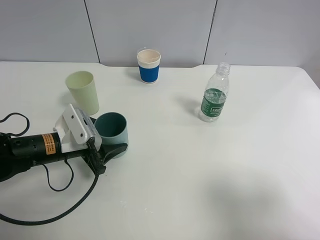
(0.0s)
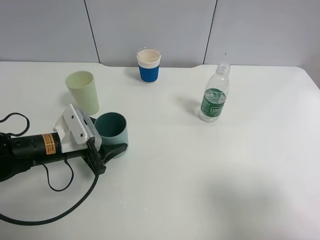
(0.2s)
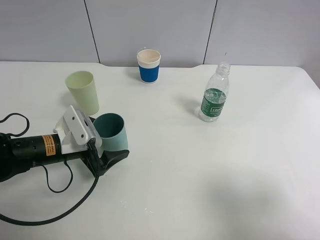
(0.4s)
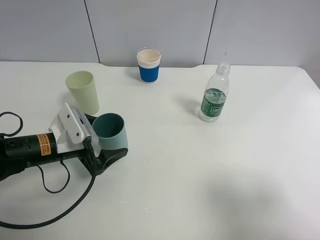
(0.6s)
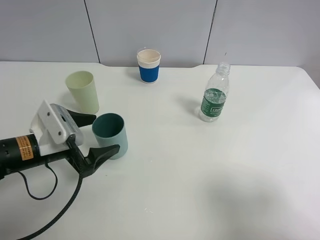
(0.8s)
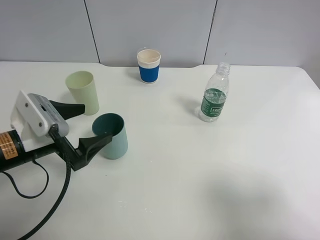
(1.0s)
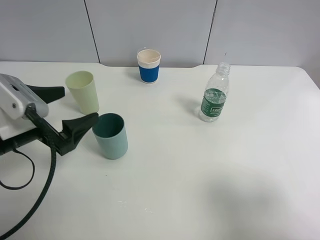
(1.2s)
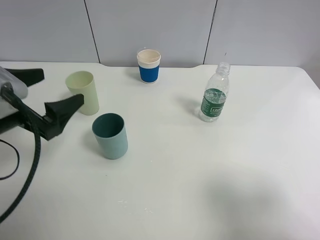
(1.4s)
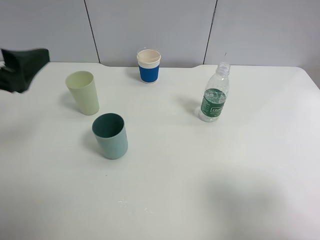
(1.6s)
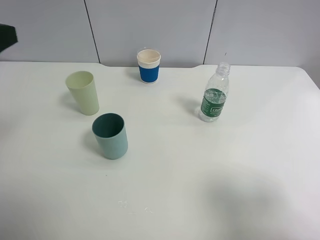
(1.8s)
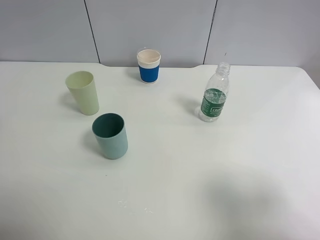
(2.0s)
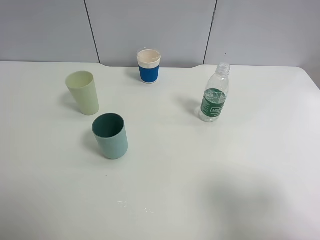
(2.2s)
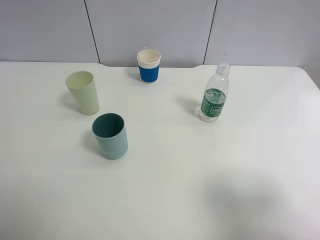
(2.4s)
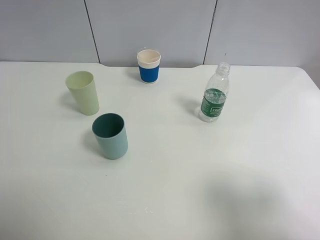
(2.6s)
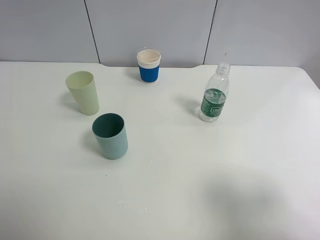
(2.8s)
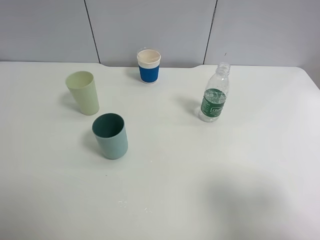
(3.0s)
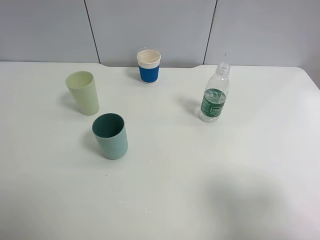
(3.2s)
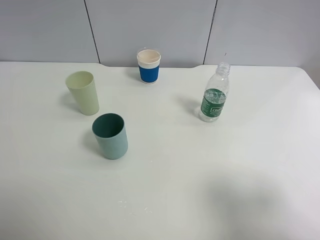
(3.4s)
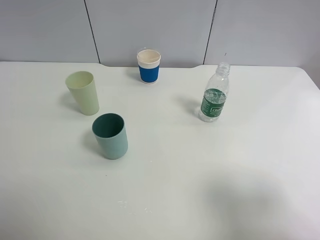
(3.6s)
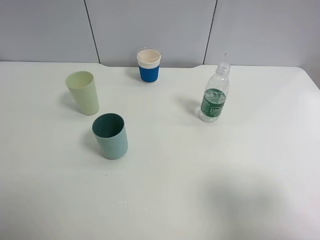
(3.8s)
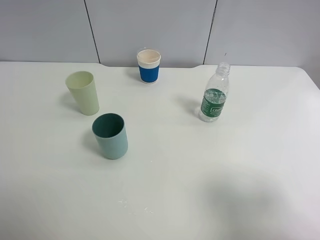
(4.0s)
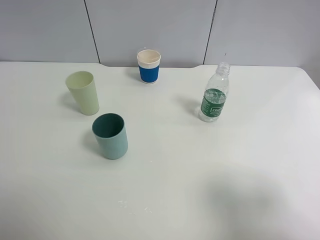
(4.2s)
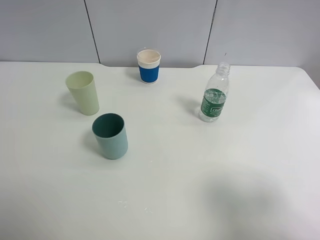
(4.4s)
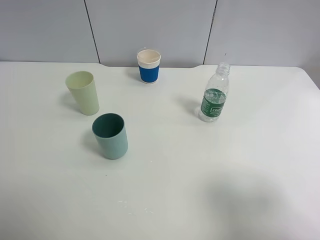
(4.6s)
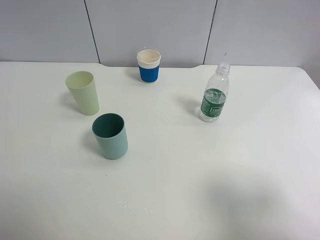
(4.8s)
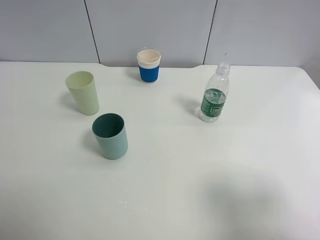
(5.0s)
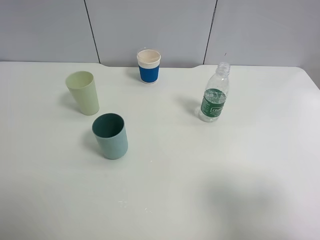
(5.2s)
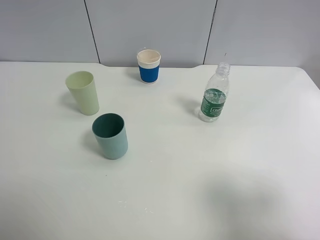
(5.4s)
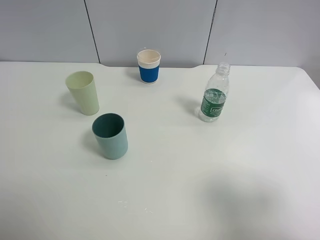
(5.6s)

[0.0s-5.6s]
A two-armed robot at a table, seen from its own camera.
Task of the whole recording: use a clamp to hold the bottle of the drink, pour the beverage into a random cup, then clamp the cup containing the drink and pour the drink into another random cup.
0.0s to 1.4s: The left gripper travels upward by some 15 cm, and opens up.
1.4s to 2.8s: The left gripper goes about 20 cm backward, upward and to the left.
4.2s to 5.6s: Neither gripper changes place.

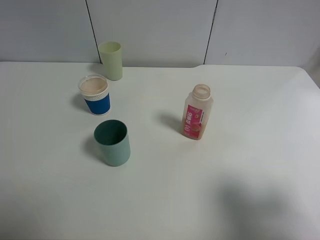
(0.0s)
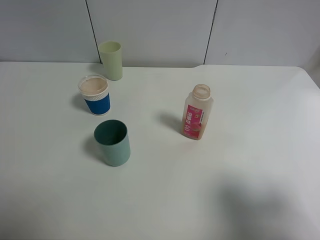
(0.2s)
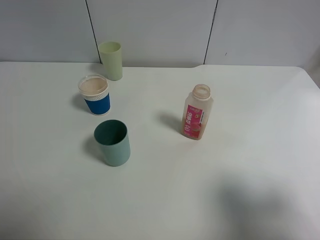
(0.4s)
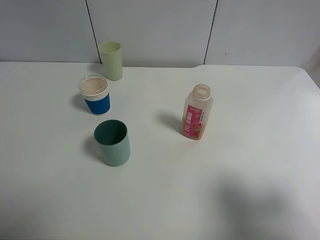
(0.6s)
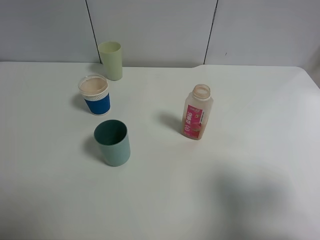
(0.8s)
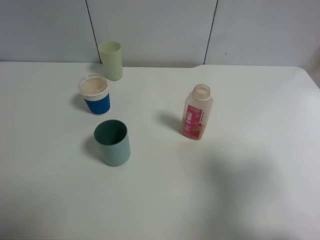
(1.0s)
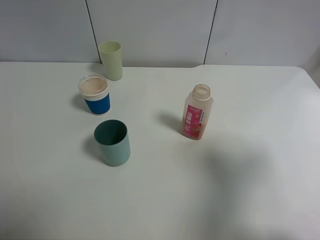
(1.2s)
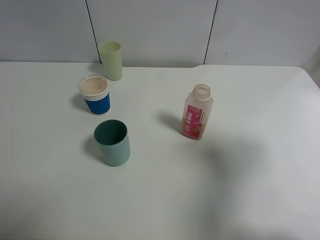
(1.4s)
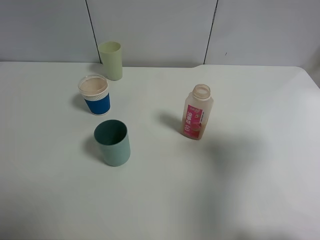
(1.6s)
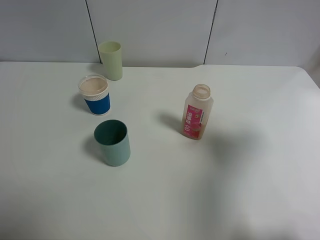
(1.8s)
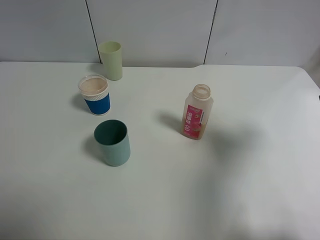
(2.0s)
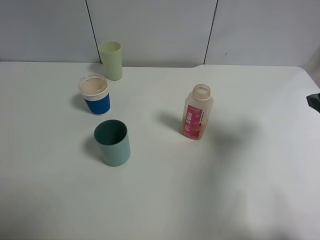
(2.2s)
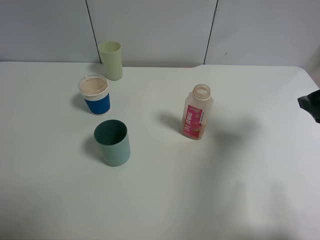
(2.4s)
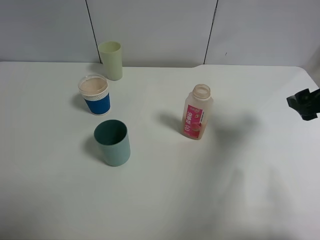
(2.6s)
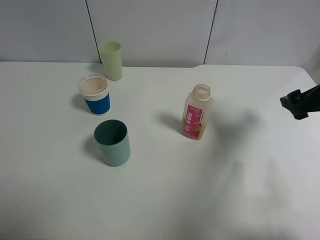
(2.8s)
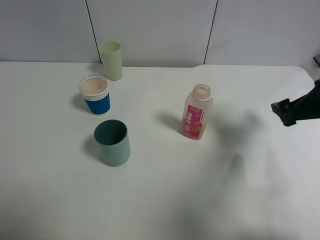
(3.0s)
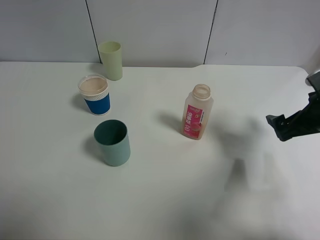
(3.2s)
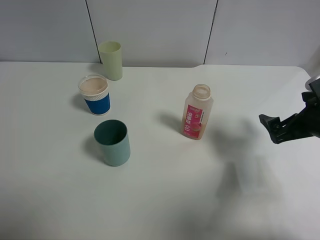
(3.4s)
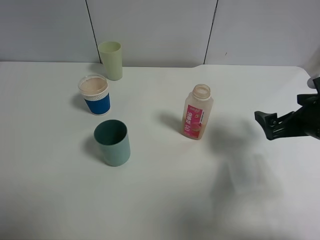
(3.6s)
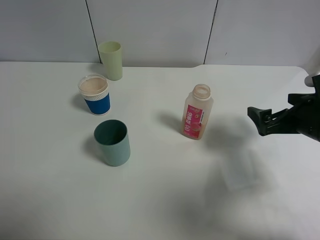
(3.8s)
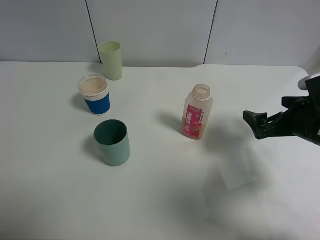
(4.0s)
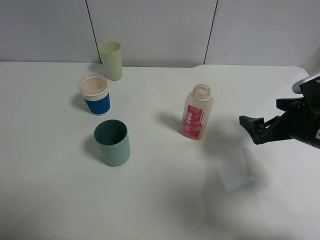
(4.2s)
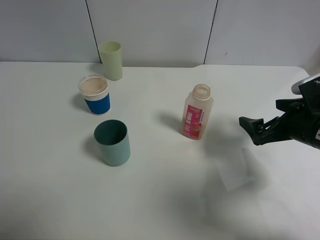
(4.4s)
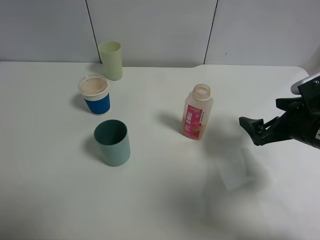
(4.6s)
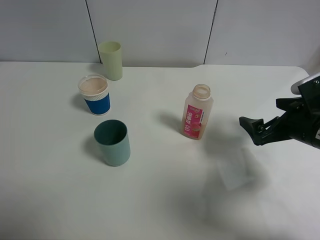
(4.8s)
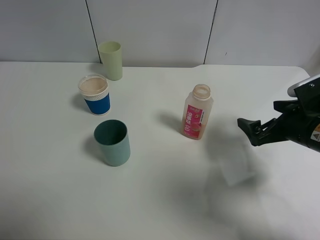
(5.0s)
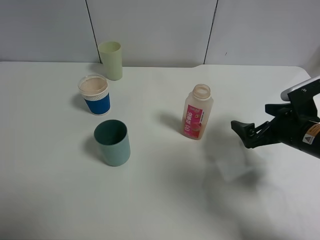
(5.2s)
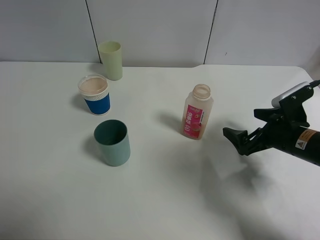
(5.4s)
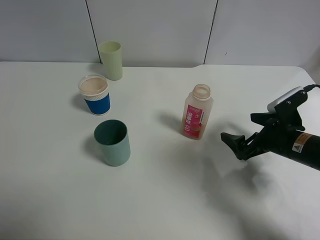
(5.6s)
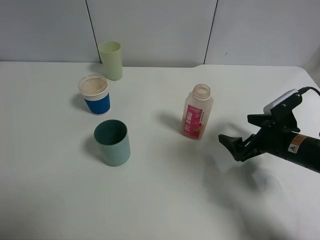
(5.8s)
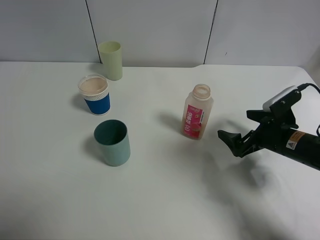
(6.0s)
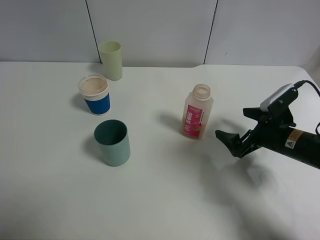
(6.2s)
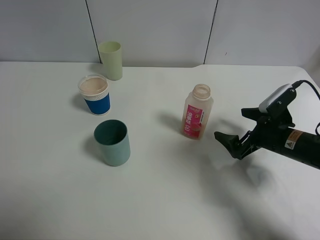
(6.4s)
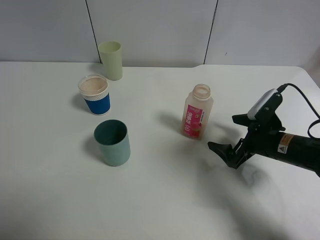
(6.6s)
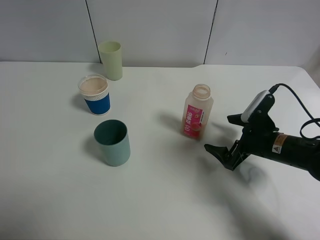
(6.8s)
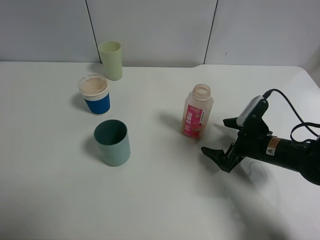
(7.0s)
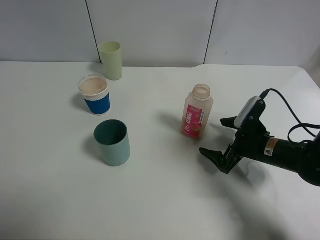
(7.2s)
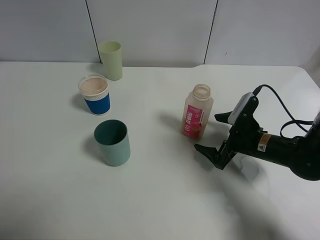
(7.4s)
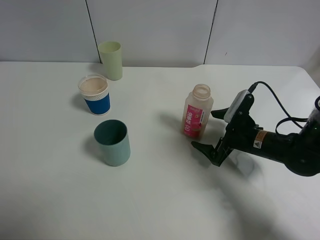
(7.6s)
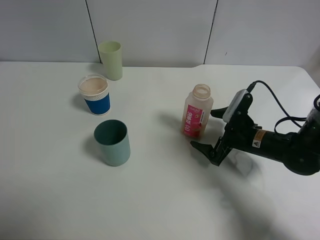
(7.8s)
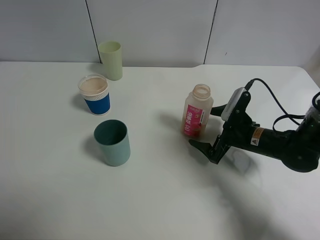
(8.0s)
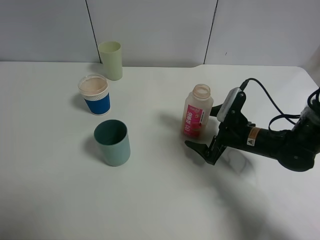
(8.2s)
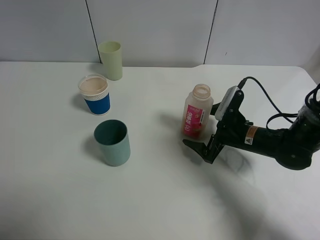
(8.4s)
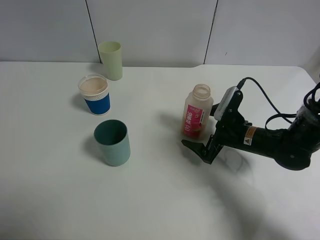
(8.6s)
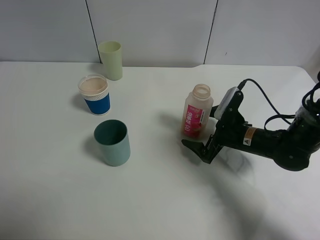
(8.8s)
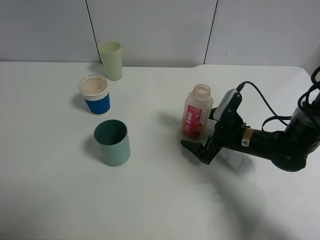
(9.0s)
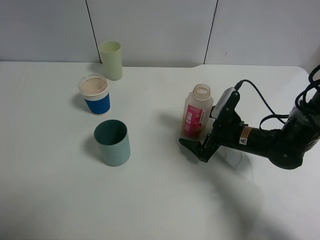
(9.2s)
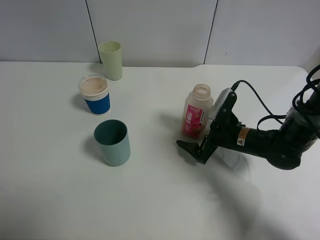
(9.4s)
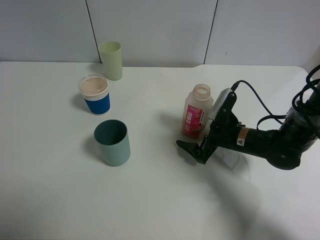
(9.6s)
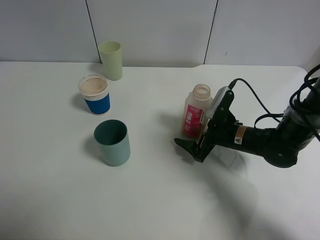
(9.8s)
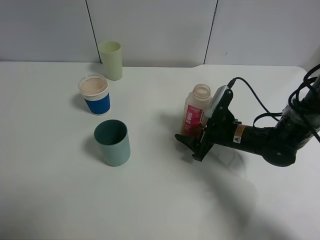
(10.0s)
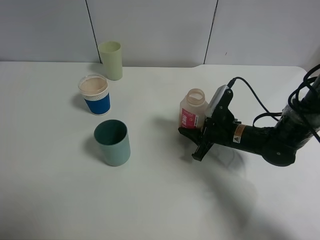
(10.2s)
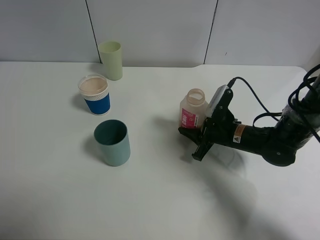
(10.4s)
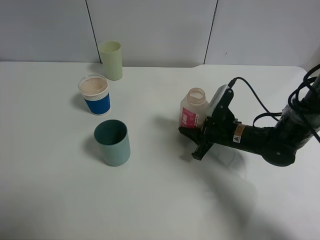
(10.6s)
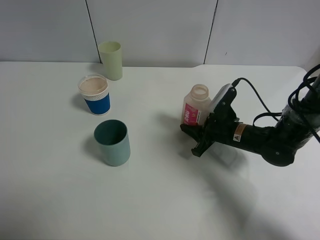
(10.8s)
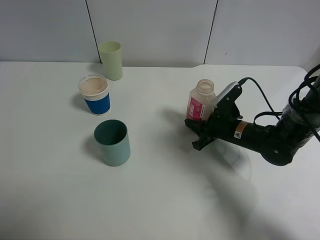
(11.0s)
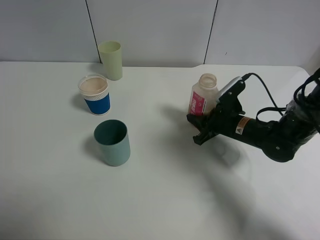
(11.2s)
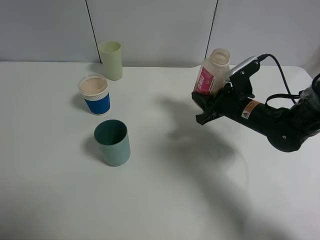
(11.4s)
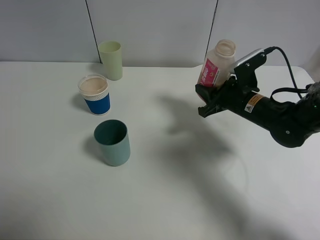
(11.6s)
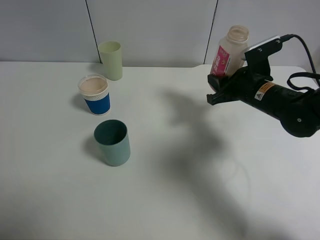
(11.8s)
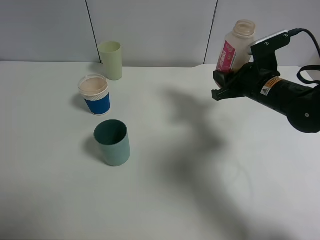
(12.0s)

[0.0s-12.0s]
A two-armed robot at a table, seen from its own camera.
Task of the whole recording: use a clamp to hold the bottle of the drink, pour the beverage into a random cup, then clamp the cup containing the drink and pour the drink into another random cup.
0.0s to 1.6s: The right gripper travels forward by roughly 10 cm.
1.6s to 3.0s: The right gripper is displaced forward and downward by approximately 15 cm.
3.0s to 4.4s: The right gripper shifts about 5 cm downward.
4.4s to 6.0s: The right gripper goes roughly 5 cm downward.
6.0s to 7.6s: The right gripper changes place by approximately 5 cm.
7.6s to 9.0s: The grippers make only small movements.
9.0s to 10.4s: The right gripper closes up.
10.4s to 12.0s: The right gripper is displaced upward by approximately 10 cm.

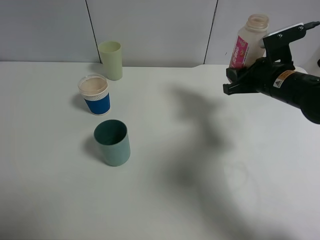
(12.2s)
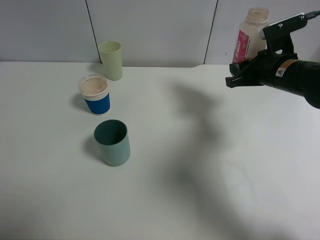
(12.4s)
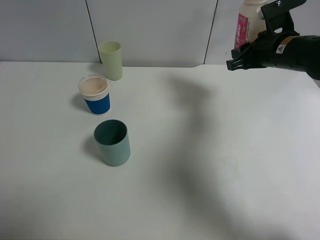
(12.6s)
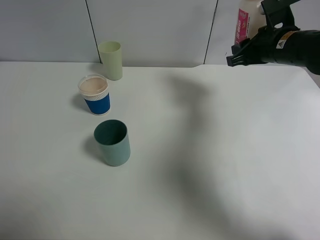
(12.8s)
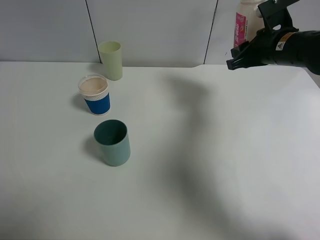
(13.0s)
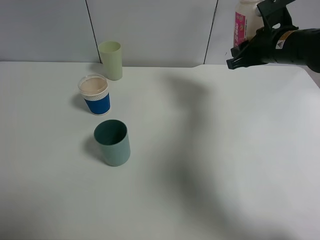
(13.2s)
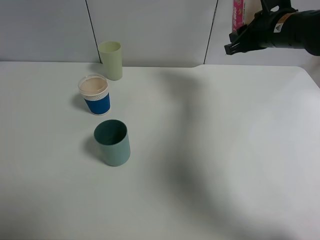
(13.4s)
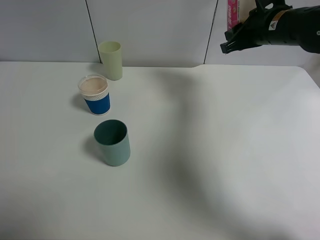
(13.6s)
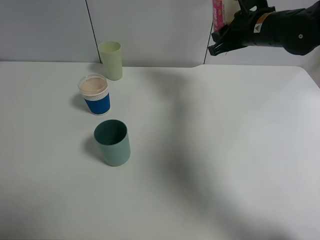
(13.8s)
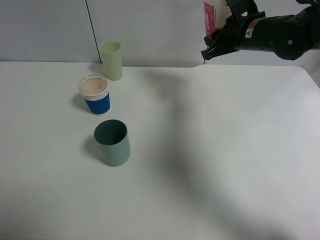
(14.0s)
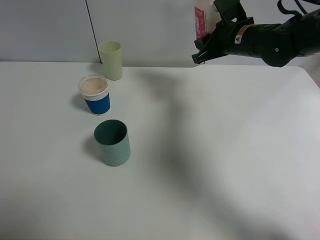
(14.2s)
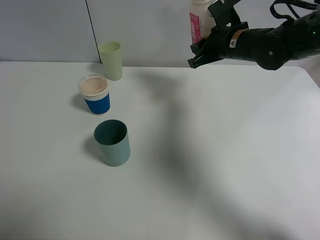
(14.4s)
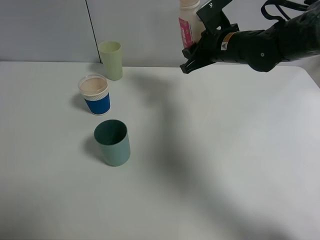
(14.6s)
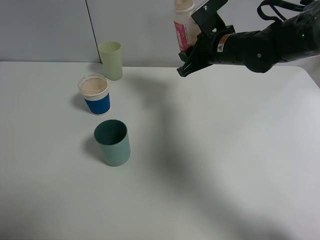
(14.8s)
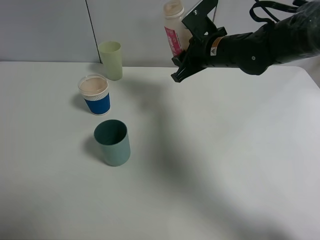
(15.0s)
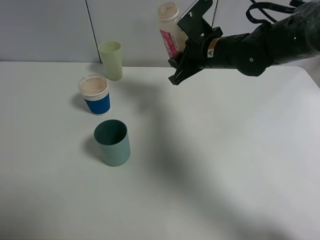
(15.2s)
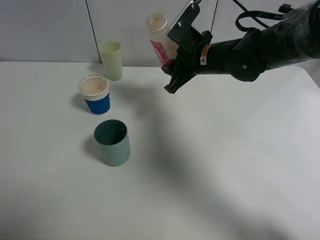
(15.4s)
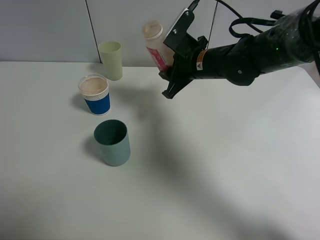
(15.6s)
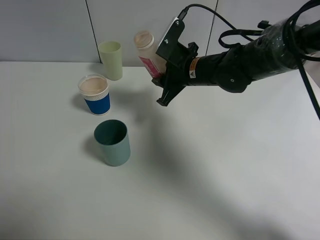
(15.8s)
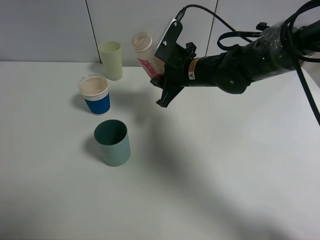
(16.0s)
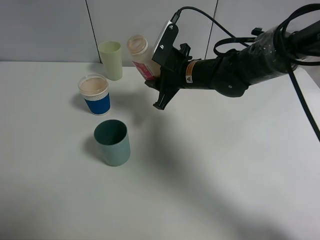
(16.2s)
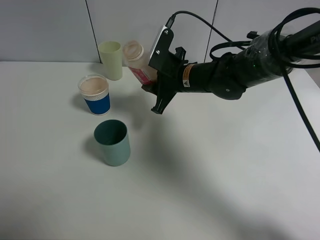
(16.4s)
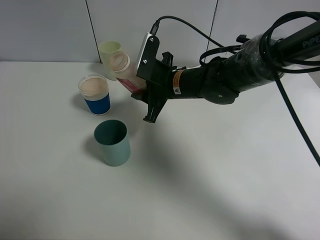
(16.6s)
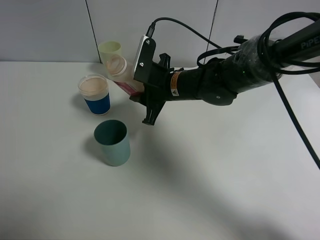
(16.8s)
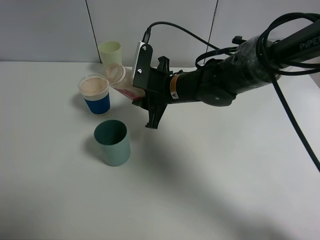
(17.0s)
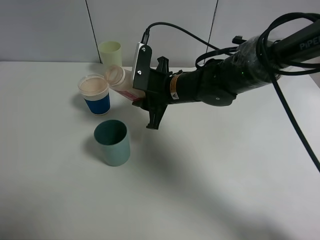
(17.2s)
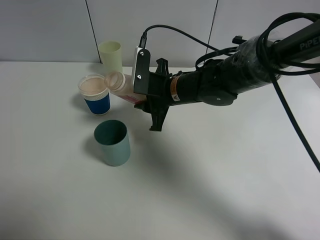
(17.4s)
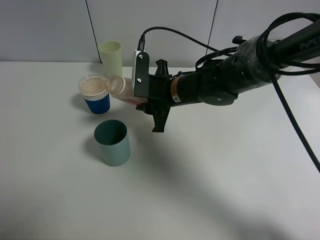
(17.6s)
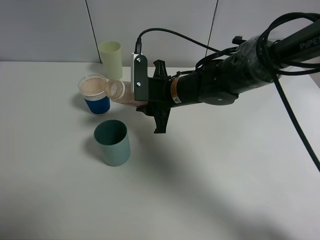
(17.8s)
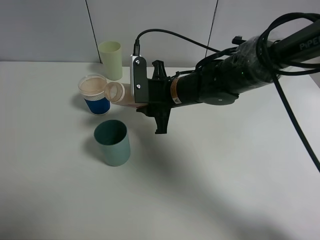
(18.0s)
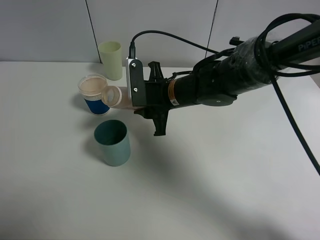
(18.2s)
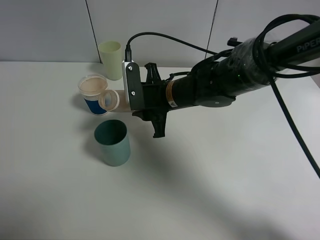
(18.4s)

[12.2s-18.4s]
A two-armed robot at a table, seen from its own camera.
Task of the whole recording: use a clamp to hold the bottle of the drink, pour the beverage into a random cup, then clamp the cup containing the drink and pour the drink into another random cup.
12.2s to 13.8s: The right gripper moves upward and forward, about 10 cm.
13.8s to 15.4s: The right gripper travels to the left by about 10 cm.
15.4s to 16.8s: The right gripper heads to the left and downward, covering approximately 10 cm.
